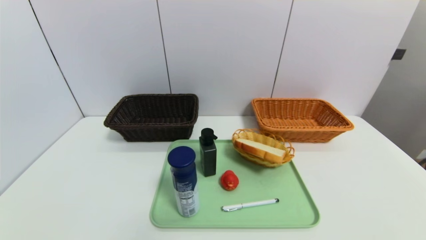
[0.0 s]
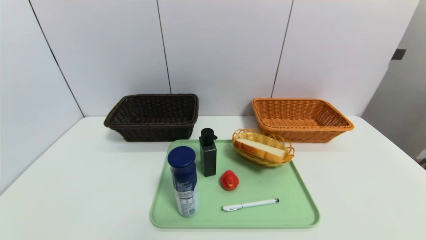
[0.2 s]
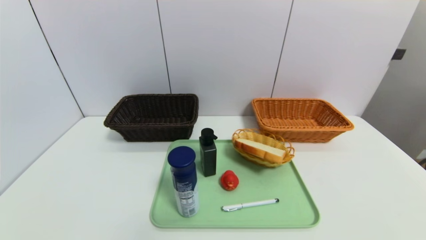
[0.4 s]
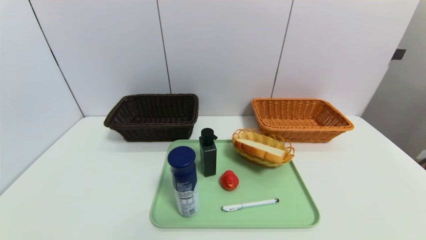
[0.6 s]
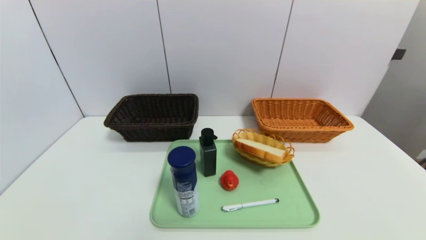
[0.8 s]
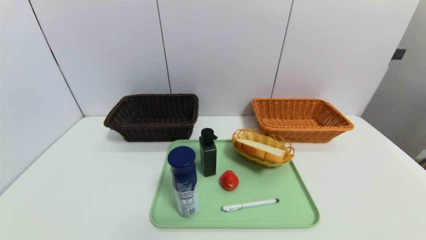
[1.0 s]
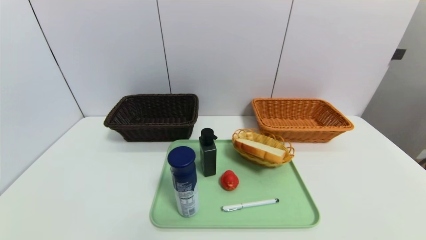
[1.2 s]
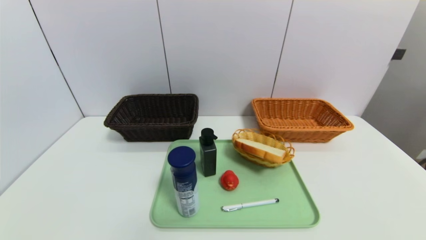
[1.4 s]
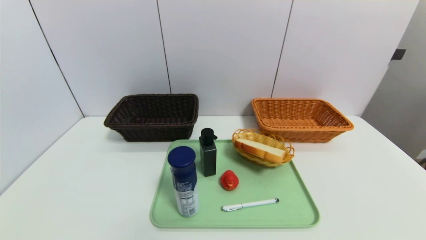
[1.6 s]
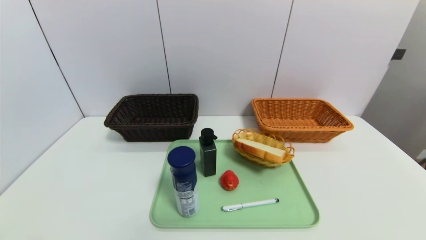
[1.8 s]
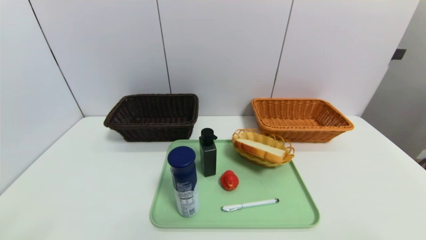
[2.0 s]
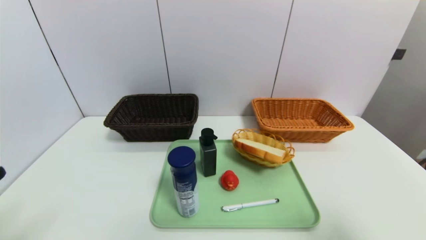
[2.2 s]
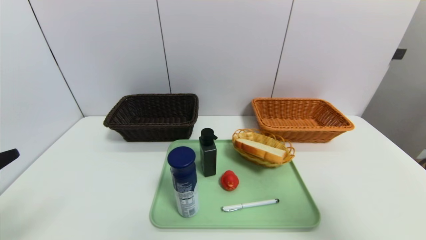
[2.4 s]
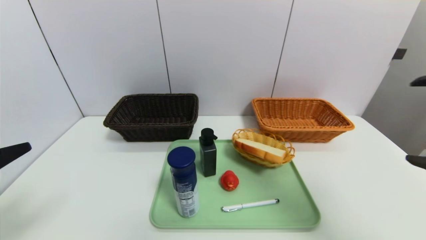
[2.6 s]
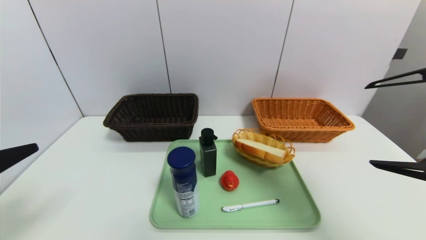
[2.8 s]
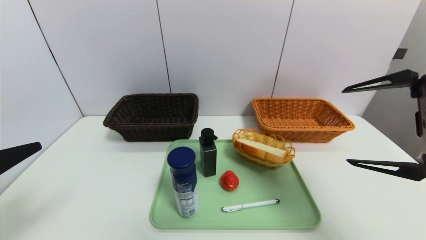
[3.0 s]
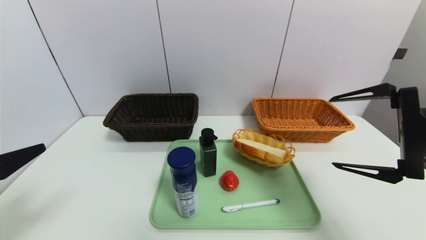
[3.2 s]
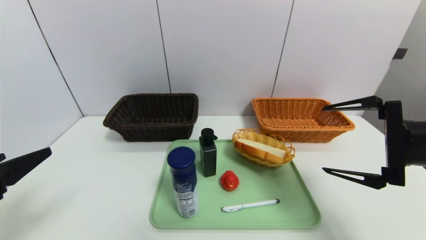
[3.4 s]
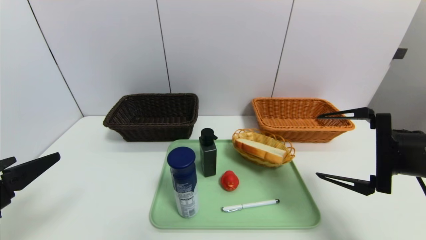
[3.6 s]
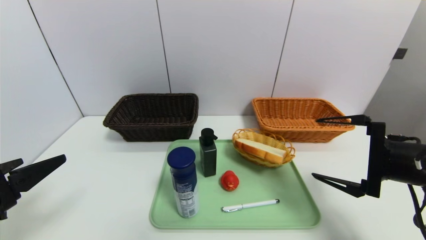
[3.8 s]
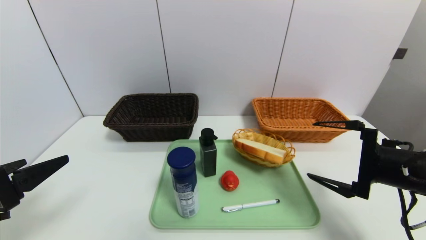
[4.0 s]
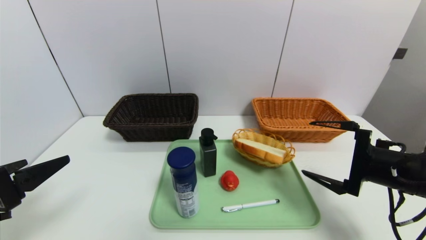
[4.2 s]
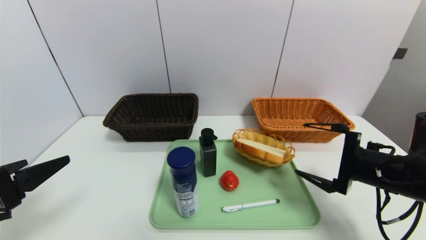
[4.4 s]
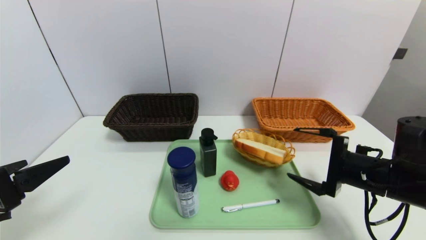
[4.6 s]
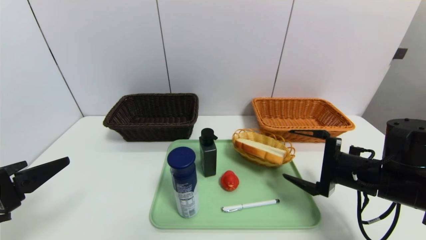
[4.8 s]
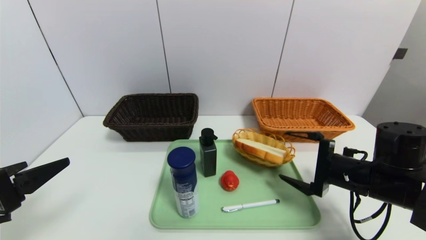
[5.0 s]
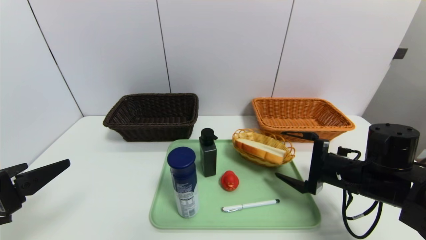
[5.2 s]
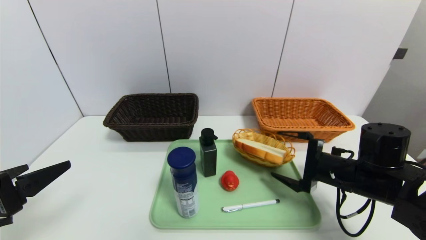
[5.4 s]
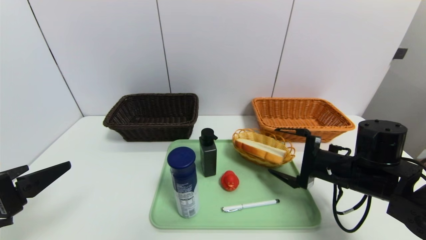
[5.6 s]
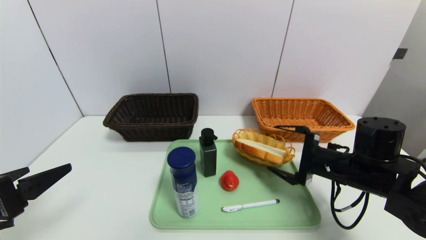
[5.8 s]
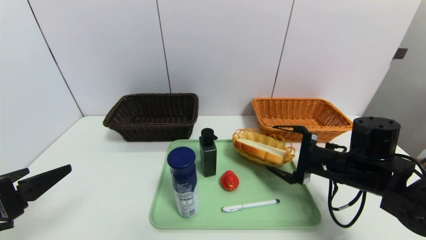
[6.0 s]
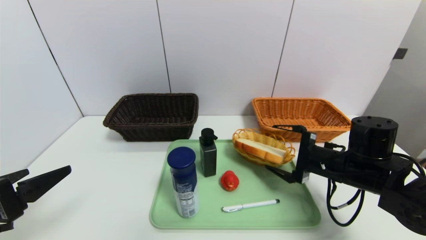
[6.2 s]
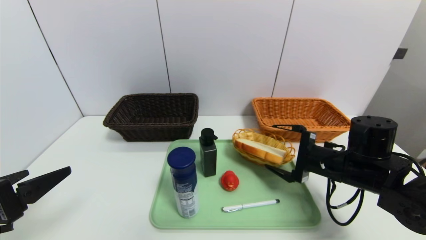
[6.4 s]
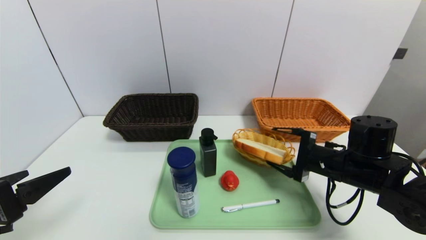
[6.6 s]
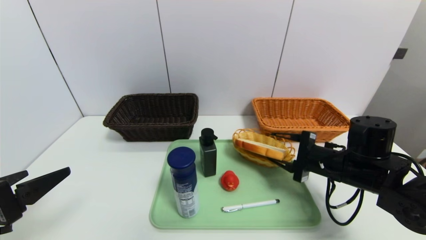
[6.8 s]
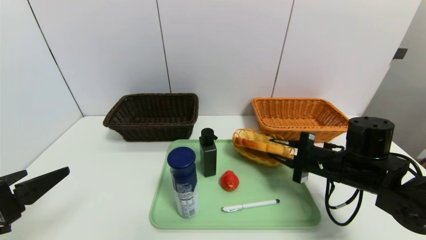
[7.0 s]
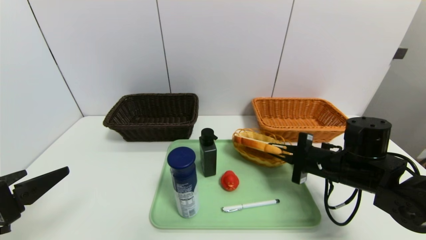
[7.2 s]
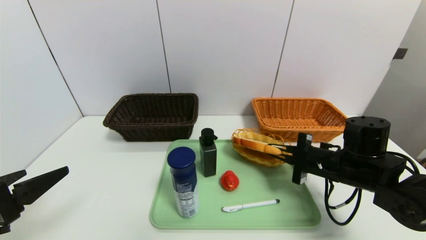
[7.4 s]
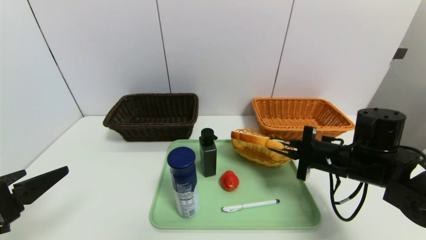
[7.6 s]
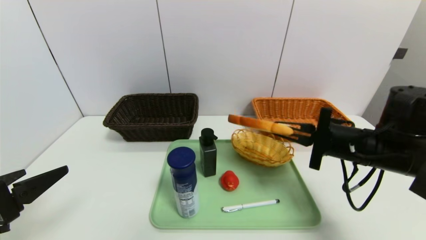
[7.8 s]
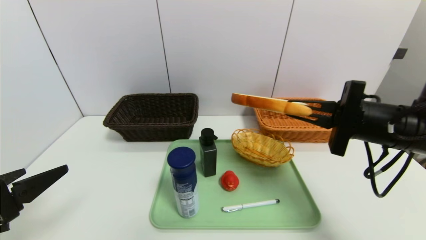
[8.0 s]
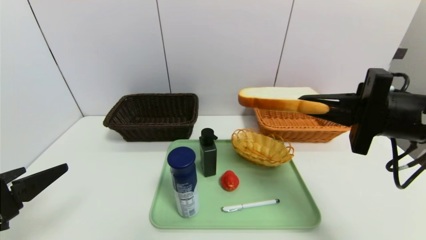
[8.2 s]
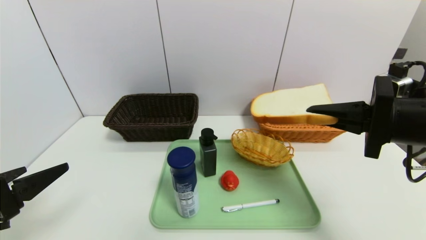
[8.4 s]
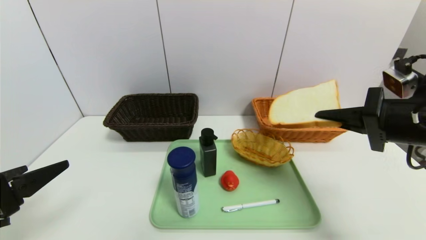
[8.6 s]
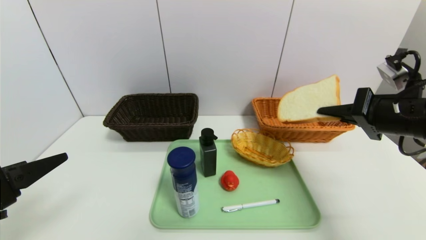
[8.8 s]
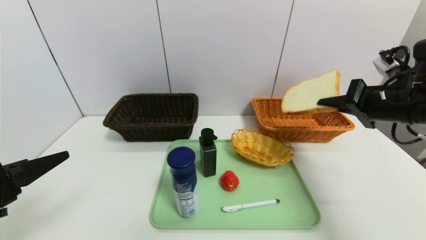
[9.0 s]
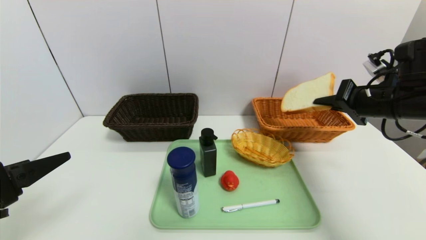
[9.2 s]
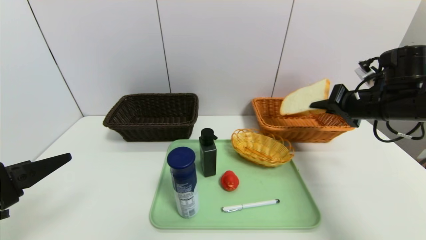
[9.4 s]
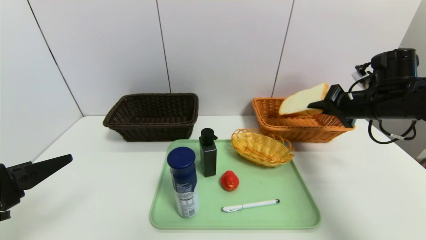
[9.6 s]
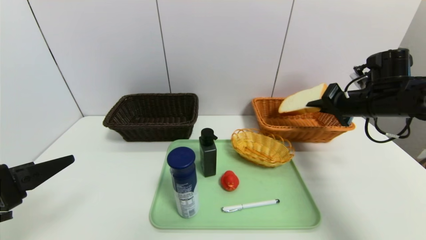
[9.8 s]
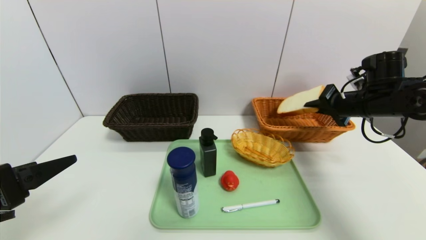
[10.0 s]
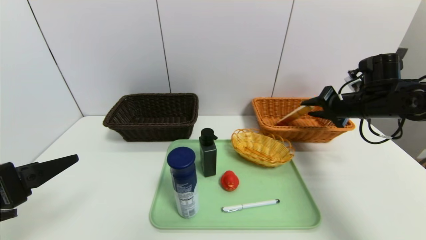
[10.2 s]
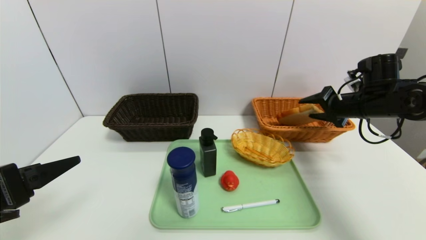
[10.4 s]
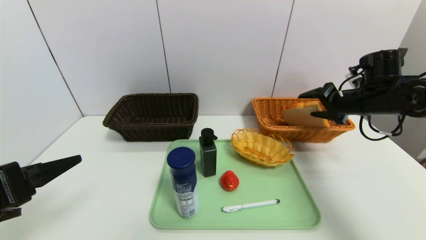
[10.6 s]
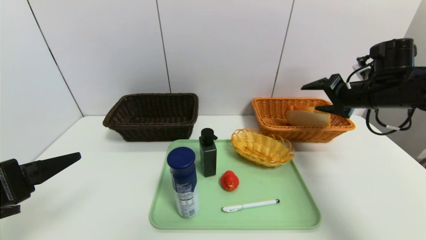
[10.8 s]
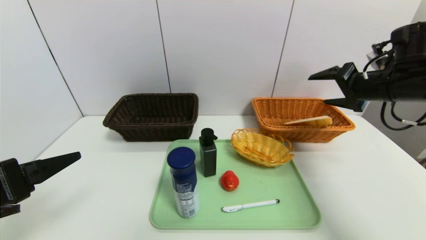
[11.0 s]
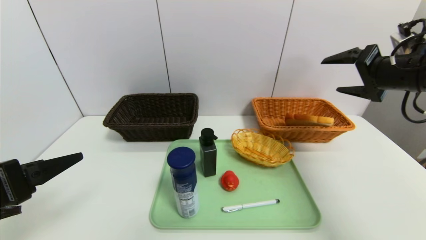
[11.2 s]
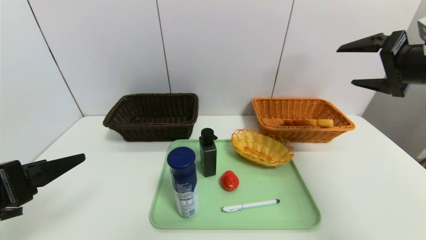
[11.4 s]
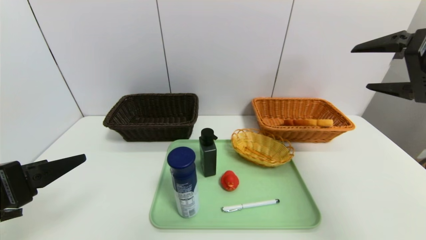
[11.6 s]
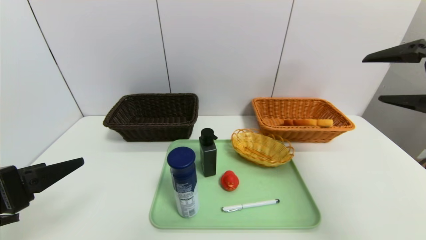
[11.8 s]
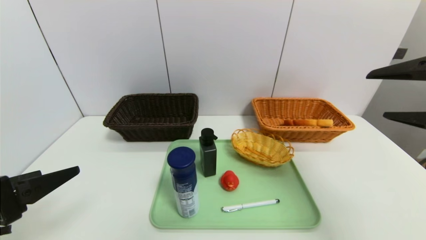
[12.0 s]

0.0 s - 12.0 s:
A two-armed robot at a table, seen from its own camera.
Task of the whole recording: place the food in the right basket with the right gripper, and place the non food items in the left basket with the left gripper.
Step, 0.0 s - 10.8 s: Grasp the bread slice and put it in the right basket.
1.6 s - 3.0 s: The left gripper shifts approximately 15 cm forward and upward, while the right gripper heads forward and upward, covering approximately 25 cm.
3.0 s - 4.4 s: The right gripper travels downward by some 15 cm.
4.4 s - 6.0 s: The right gripper ends up roughly 5 cm from where it was.
6.0 s - 7.6 s: The right gripper closes its fingers.
7.6 s - 9.0 s: The right gripper is displaced upward and to the right by approximately 10 cm.
9.0 s - 10.4 s: The right gripper shifts some 10 cm forward, and opens.
10.4 s - 12.0 s: The right gripper travels backward and upward by some 25 cm, and opens up.

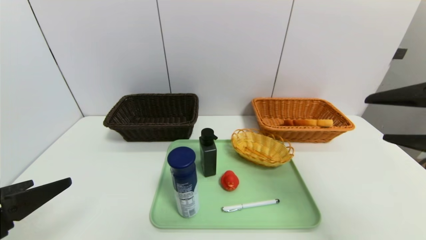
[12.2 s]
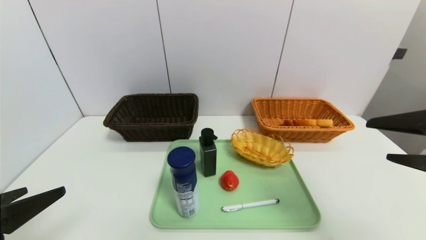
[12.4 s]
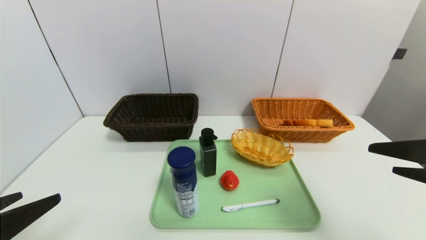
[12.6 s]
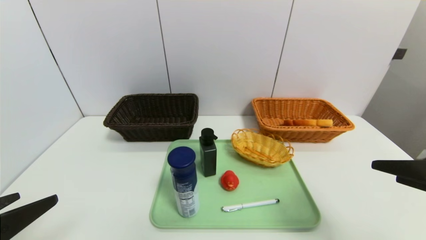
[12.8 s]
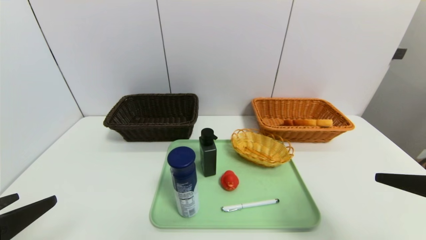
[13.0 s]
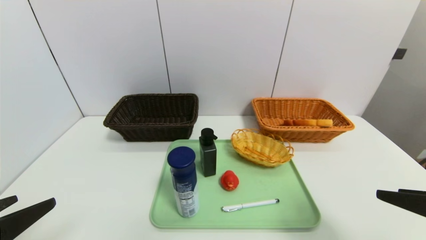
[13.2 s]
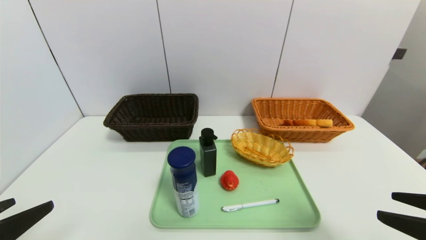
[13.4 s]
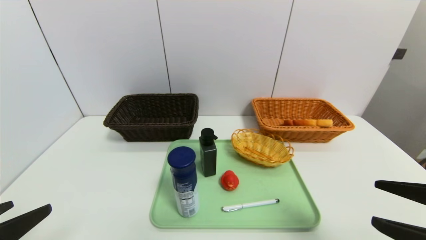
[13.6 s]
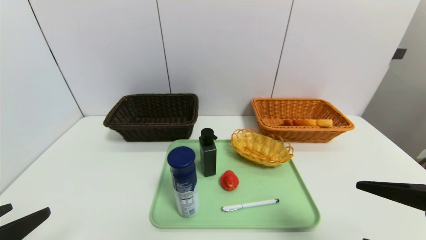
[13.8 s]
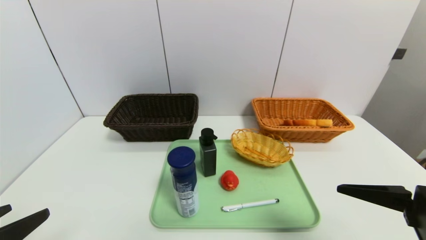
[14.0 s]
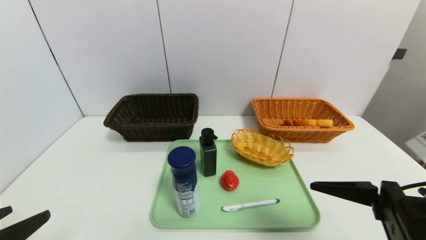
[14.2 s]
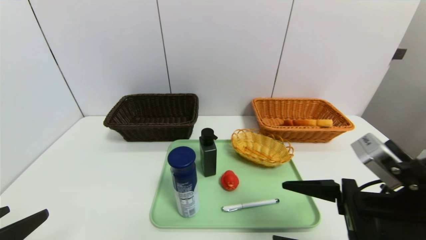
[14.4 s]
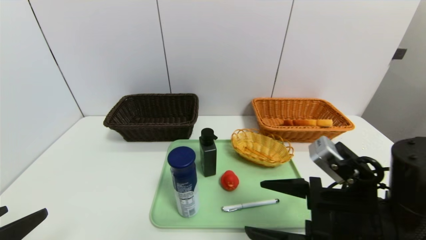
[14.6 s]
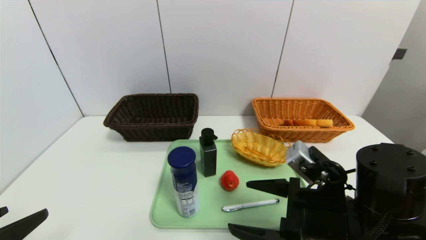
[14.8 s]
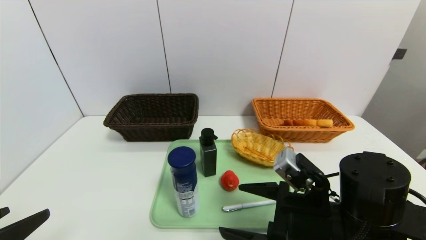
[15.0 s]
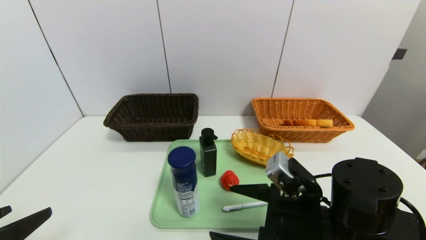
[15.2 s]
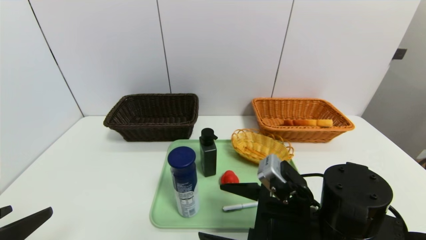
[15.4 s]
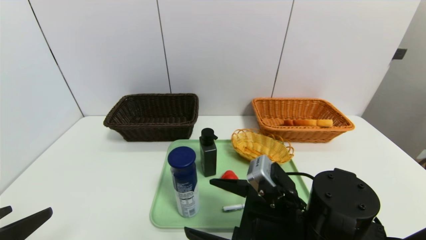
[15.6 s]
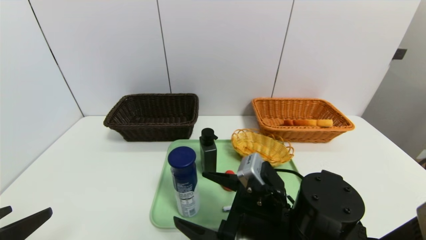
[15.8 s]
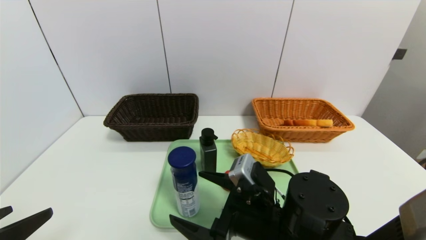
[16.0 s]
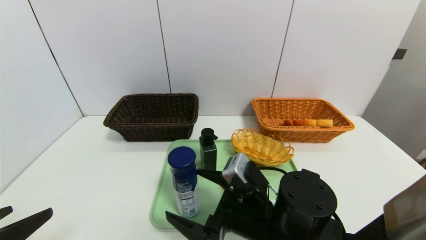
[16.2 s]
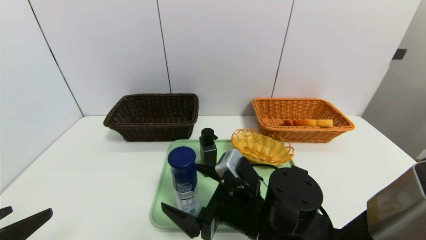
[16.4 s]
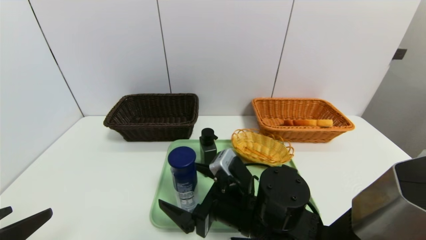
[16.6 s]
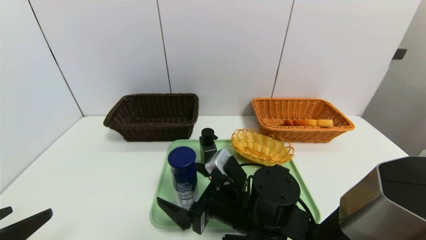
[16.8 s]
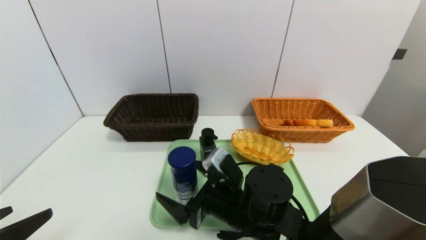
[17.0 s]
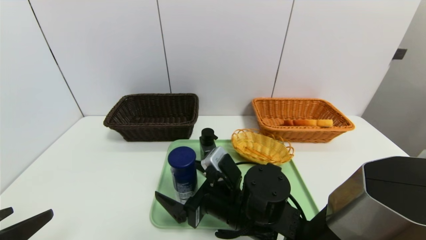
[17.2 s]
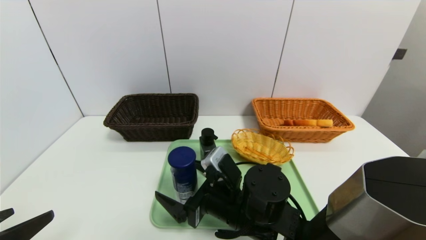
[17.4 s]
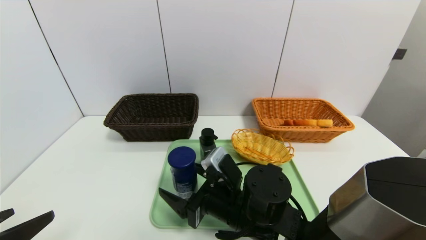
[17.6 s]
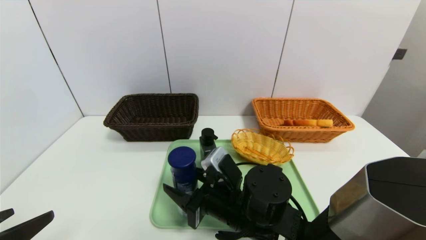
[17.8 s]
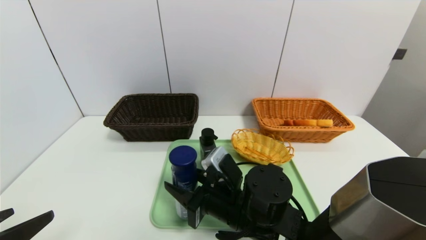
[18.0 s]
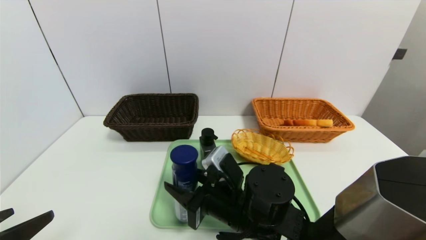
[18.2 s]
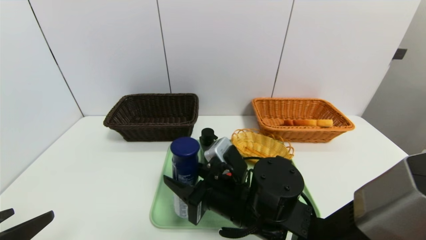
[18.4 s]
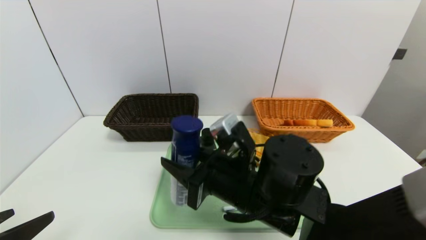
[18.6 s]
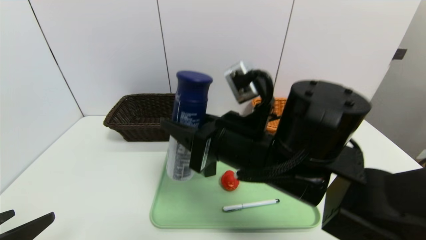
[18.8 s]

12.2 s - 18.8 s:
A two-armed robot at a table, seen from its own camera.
Task of the whole recording: place the food in the right basket with the right gripper, and place the non food items in the left basket with the left gripper.
12.2 s - 13.8 s: The right gripper is displaced downward and backward by some 10 cm.
13.8 s - 15.4 s: The right gripper goes approximately 20 cm to the left, downward and forward.
15.4 s - 17.2 s: The right gripper heads to the left, covering approximately 10 cm.
17.2 s - 18.8 s: The right gripper goes about 15 cm upward, and closes.
